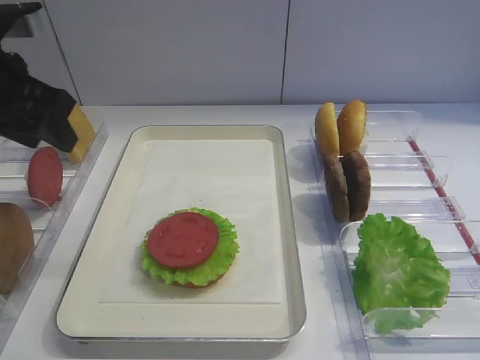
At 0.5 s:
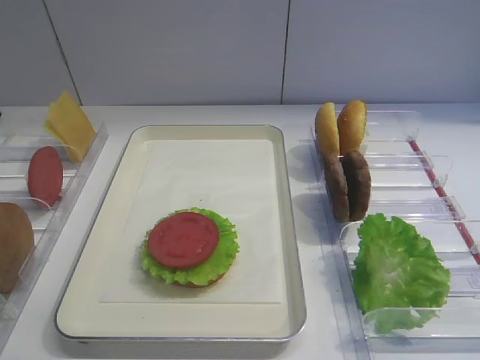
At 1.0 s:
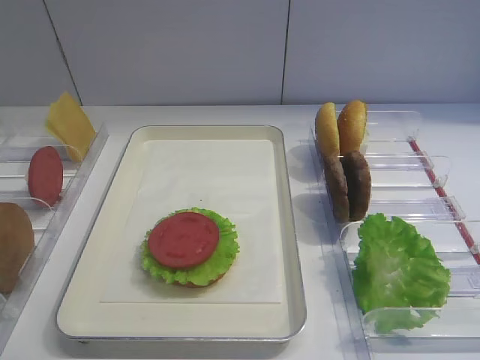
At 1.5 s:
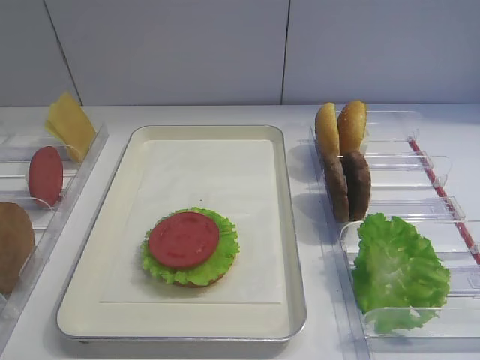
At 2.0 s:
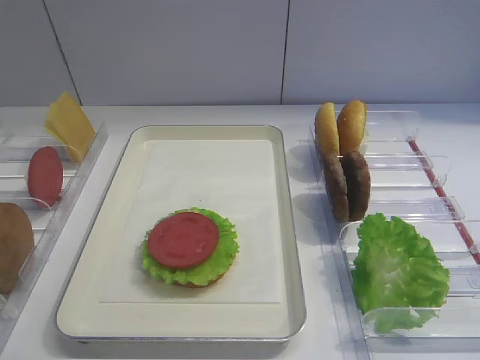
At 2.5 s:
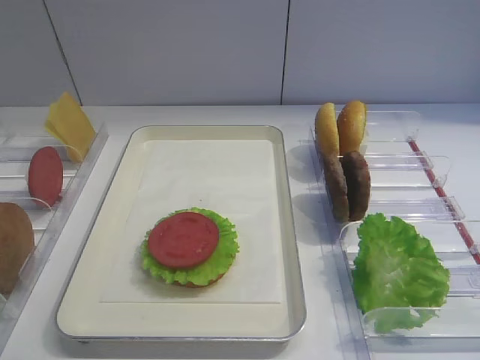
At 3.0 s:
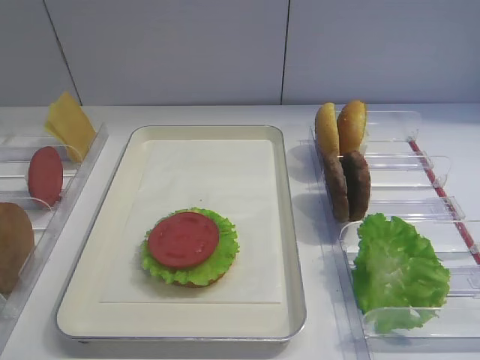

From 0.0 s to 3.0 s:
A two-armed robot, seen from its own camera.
From 0.0 s to 1.5 s: The left gripper is displaced backward by approximately 30 cm.

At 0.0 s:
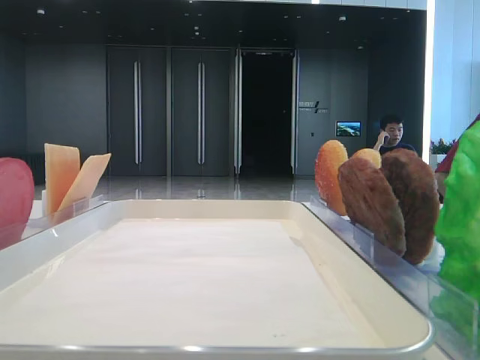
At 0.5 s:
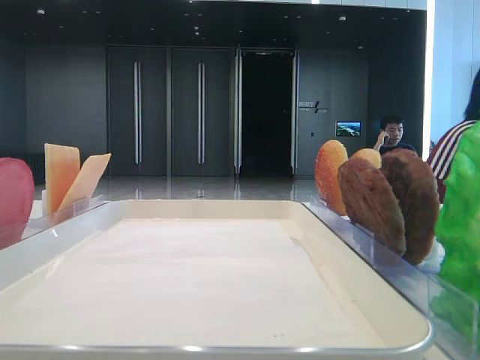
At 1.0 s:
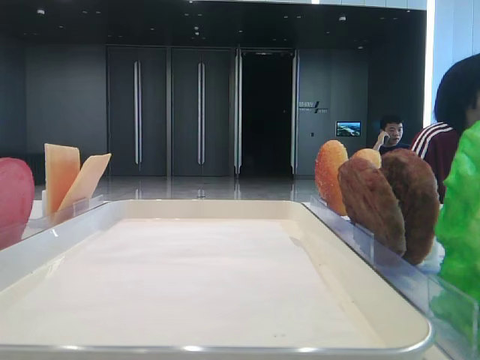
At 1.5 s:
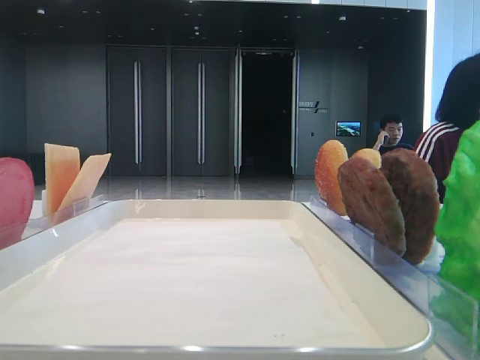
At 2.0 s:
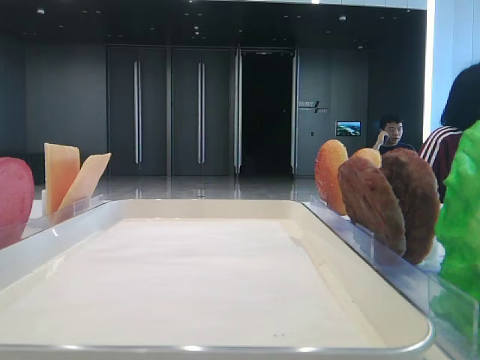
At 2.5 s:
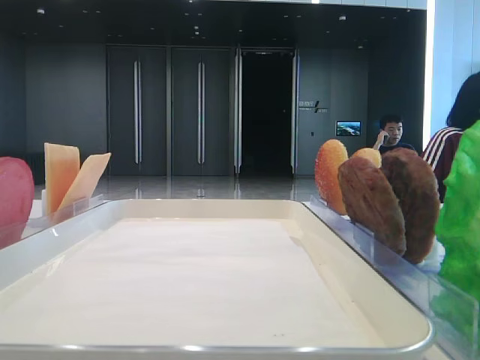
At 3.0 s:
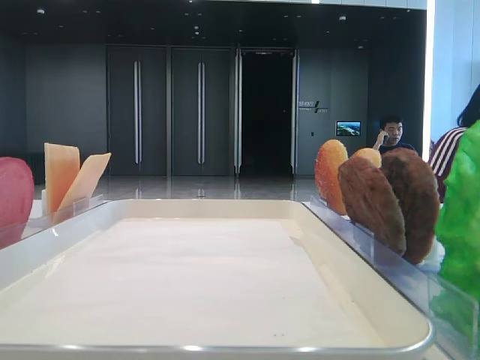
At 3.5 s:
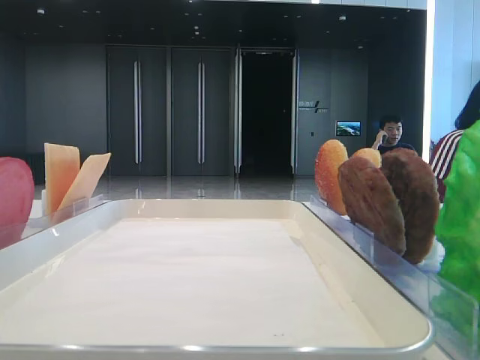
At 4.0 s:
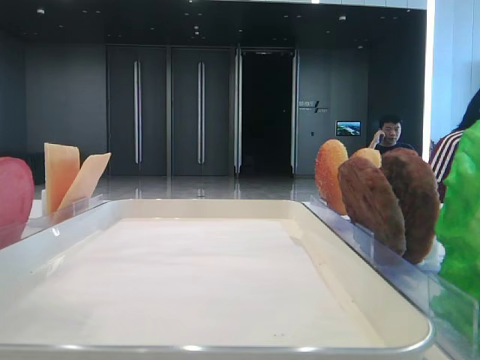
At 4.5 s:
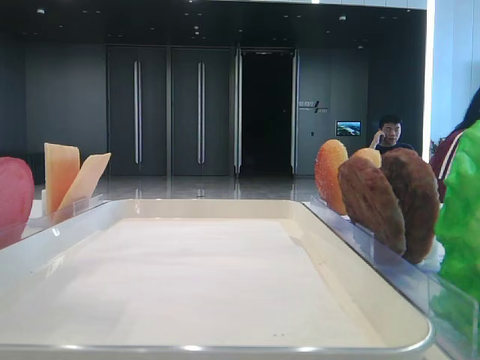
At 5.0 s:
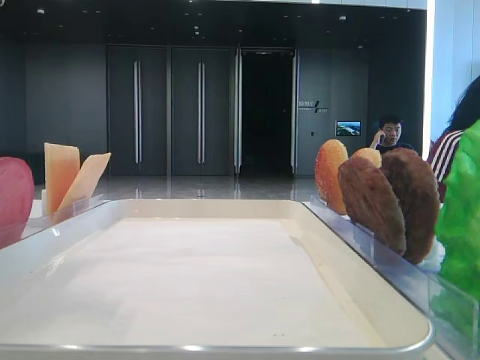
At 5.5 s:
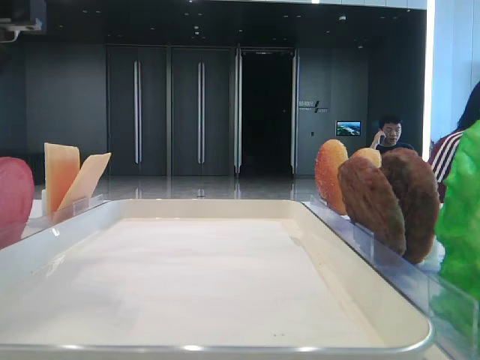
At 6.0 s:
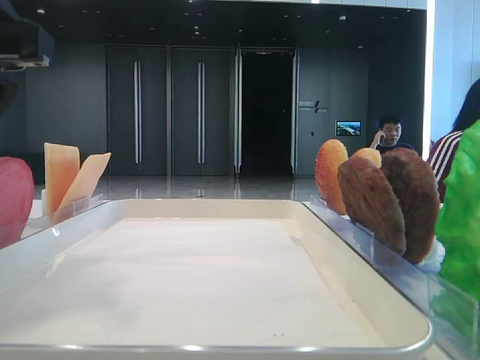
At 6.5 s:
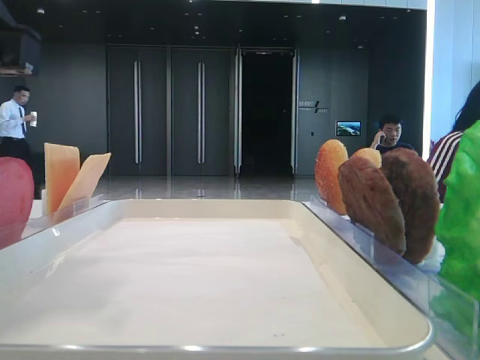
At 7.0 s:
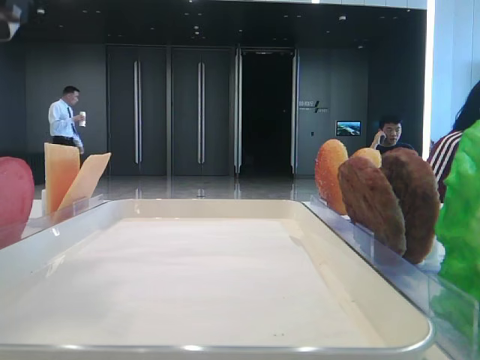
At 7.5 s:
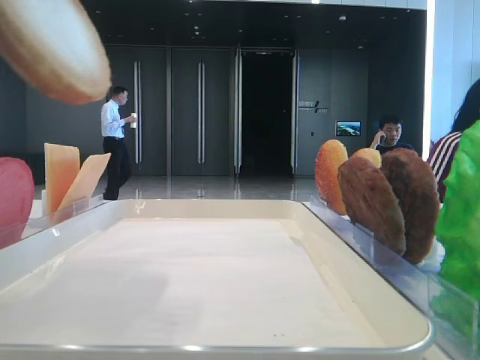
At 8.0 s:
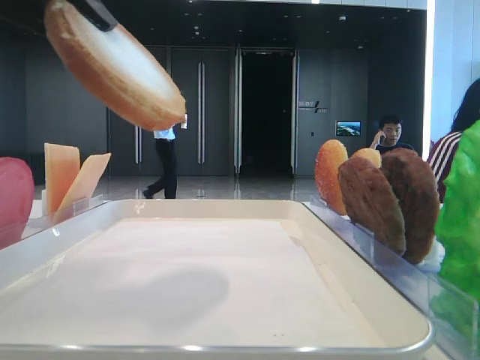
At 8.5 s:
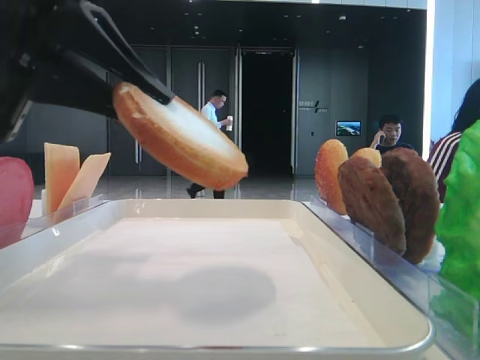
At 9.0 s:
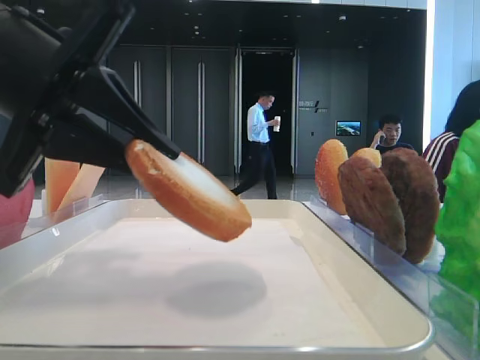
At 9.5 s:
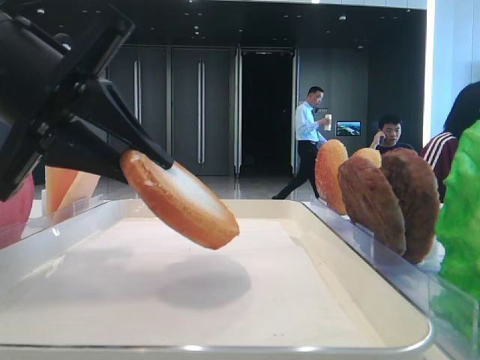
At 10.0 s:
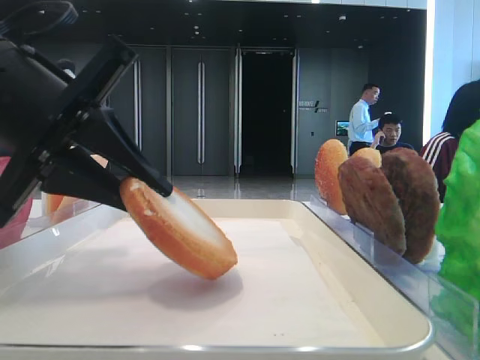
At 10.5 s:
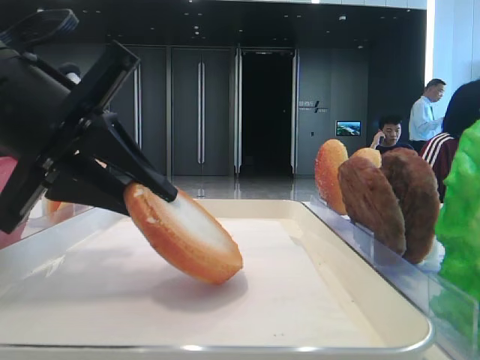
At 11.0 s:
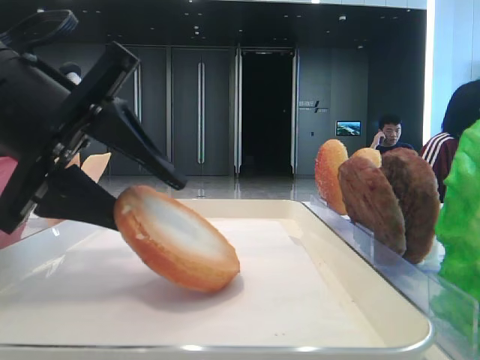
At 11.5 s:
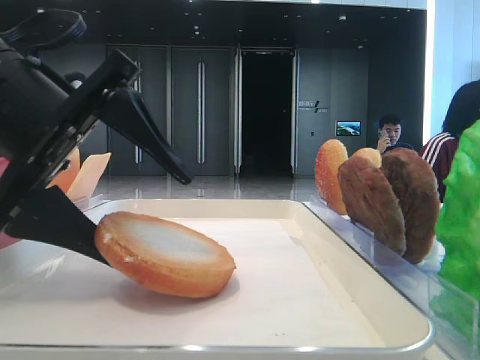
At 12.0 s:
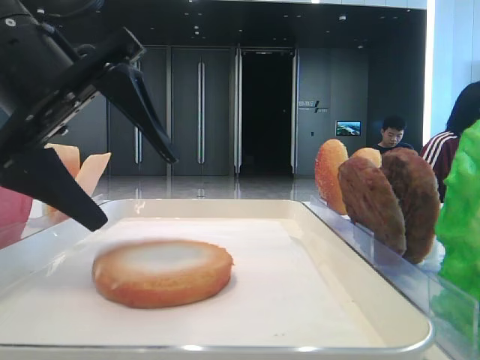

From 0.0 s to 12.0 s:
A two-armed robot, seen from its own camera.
Step, from 0.0 s to 6.0 s: Pick up the bottom bread with the left hand.
Step, from 6.5 s to 11.5 s: Place the bread on the tray with the left hand.
From 2.0 s to 4.0 s: The left gripper shifts roughly 10 cm to the right and forward.
From 4.0 s to 6.0 s: The left gripper shifts approximately 5 cm downward.
From 6.0 s to 8.0 s: The left gripper closes its fingers.
From 8.0 s to 10.0 s: The left gripper goes some 10 cm downward.
From 10.0 s to 12.0 s: The left gripper opens.

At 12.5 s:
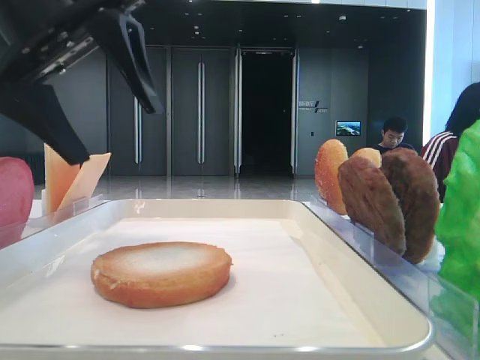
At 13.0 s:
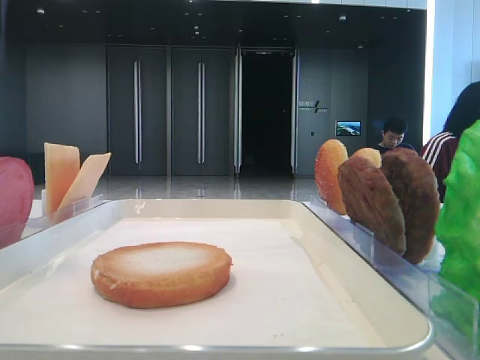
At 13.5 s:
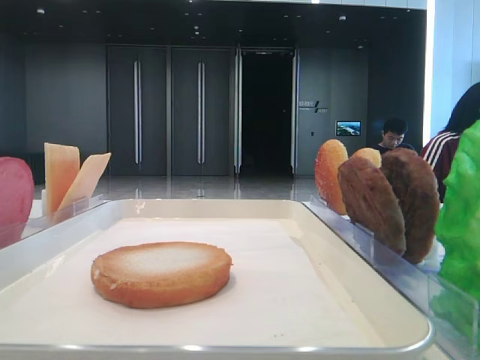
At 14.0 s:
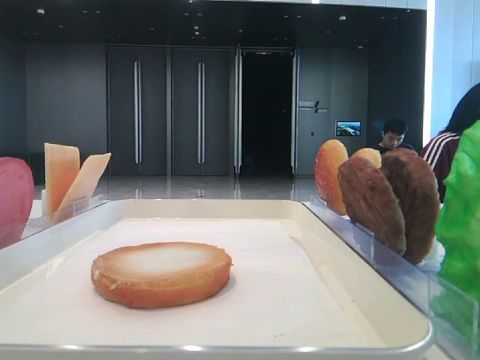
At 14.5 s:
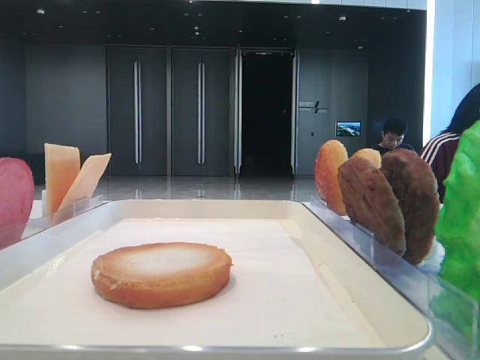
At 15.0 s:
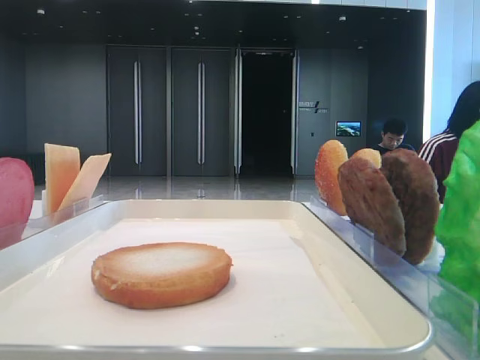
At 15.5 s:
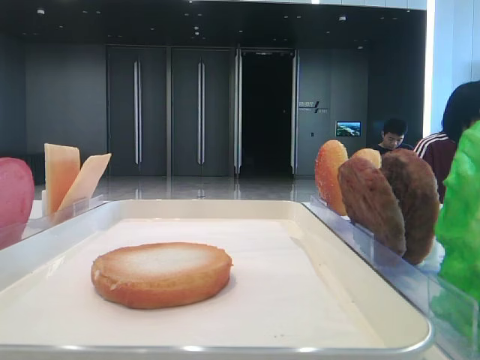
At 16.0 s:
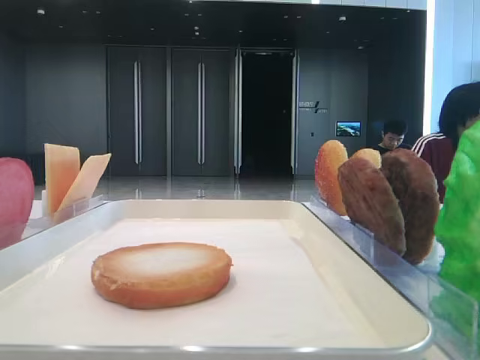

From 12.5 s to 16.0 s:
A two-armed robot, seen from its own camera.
From 12.5 s to 14.5 s: The left gripper travels backward and to the left by some 30 cm.

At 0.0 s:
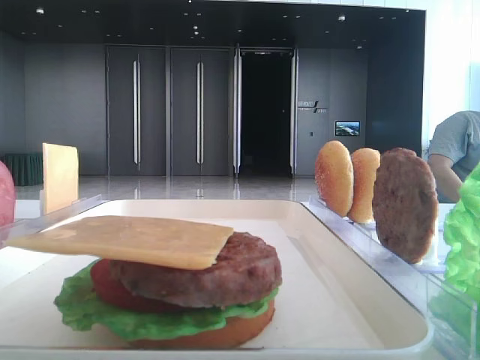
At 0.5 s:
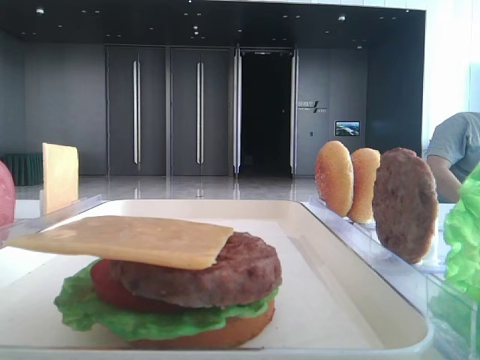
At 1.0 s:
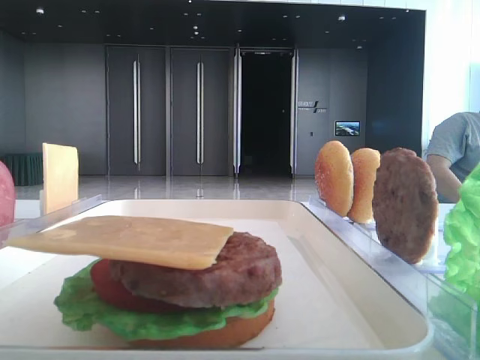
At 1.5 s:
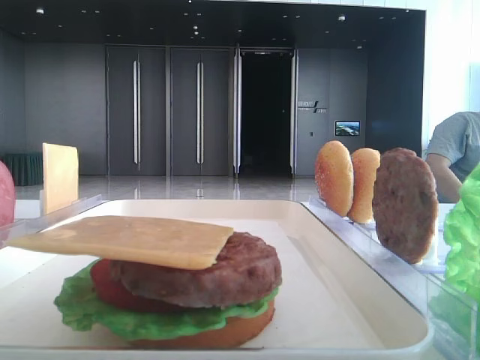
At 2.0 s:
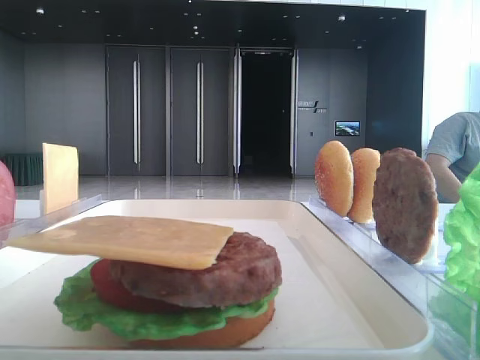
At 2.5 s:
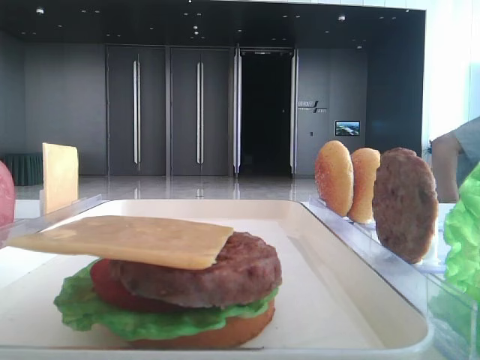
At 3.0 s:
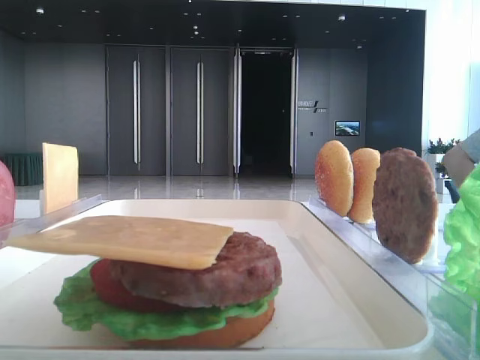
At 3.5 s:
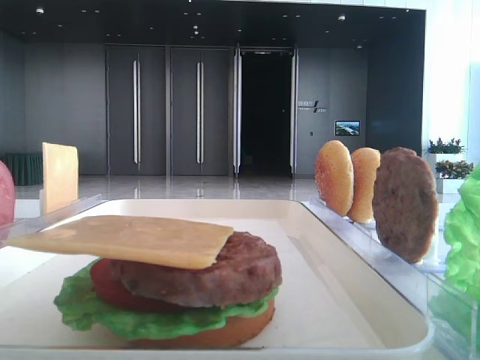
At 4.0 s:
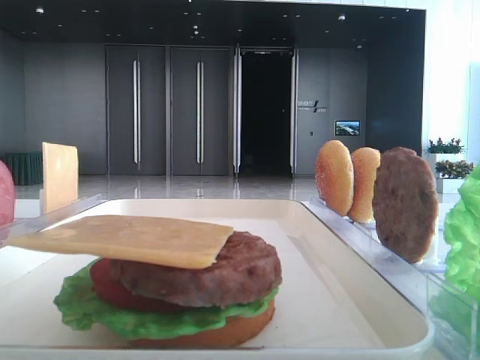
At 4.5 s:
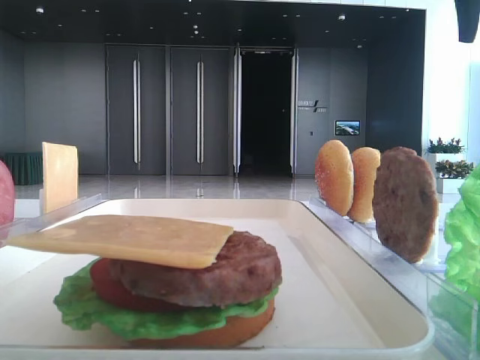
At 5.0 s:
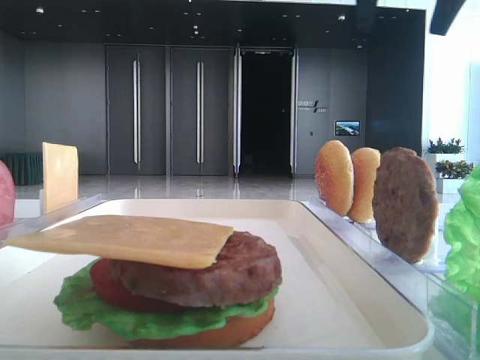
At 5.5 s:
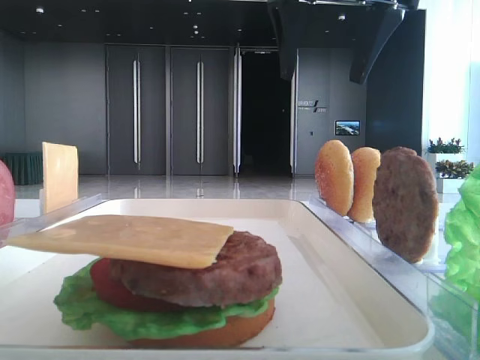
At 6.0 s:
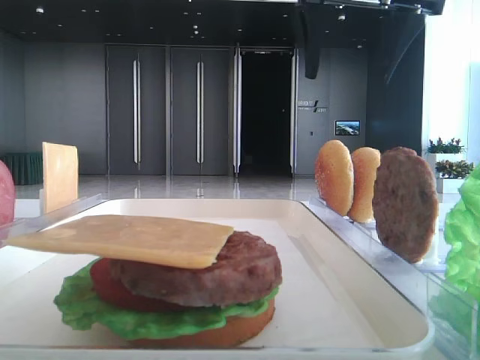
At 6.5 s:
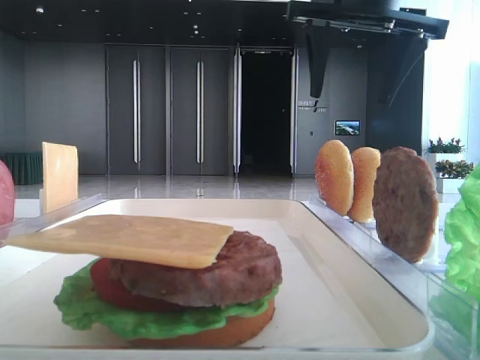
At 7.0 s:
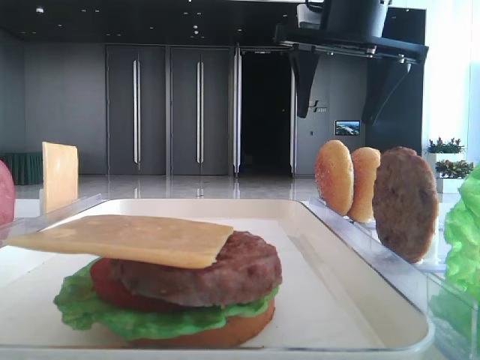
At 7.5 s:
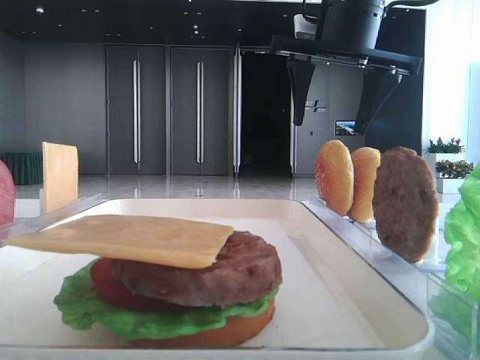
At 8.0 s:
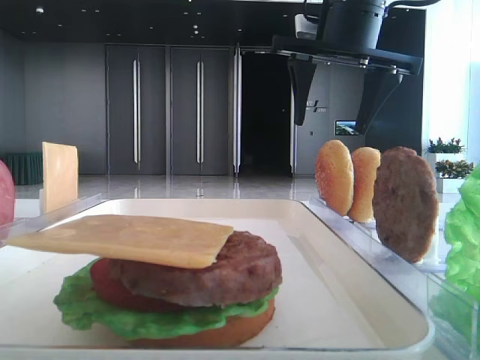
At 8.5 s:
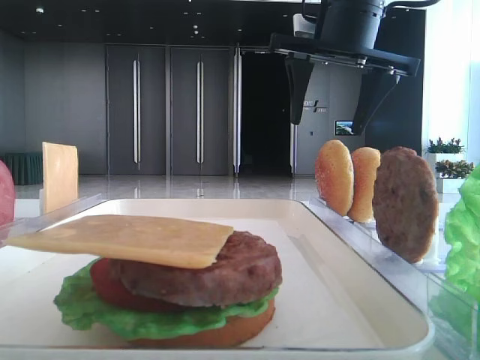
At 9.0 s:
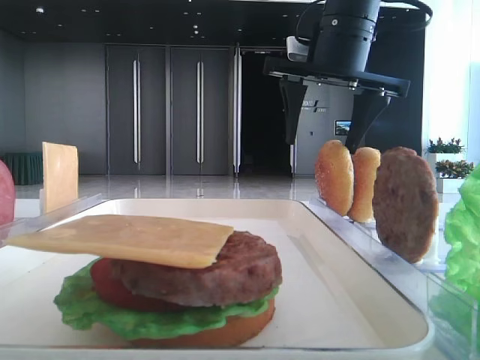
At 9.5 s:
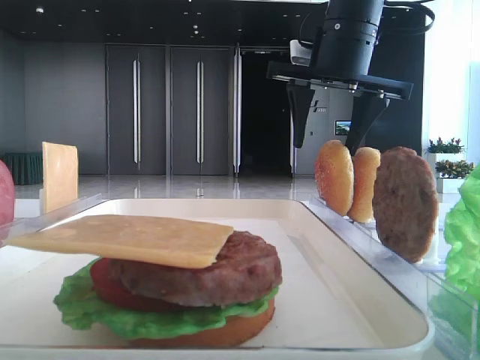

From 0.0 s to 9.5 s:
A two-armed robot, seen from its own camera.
From 2.0 s to 4.0 s: The right gripper travels forward by approximately 30 cm.
From 4.0 s to 5.5 s: The right gripper is displaced to the left by roughly 20 cm.
From 5.5 s to 7.5 s: The right gripper moves forward, about 5 cm.
From 7.5 s to 9.5 s: The grippers move only a little.
